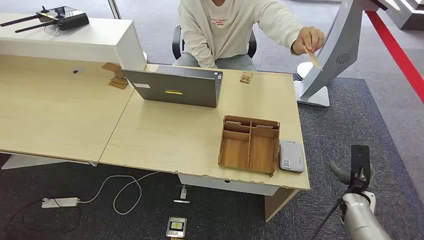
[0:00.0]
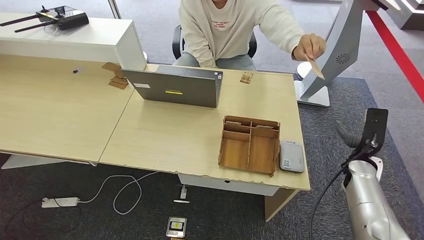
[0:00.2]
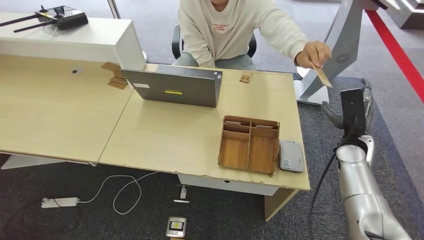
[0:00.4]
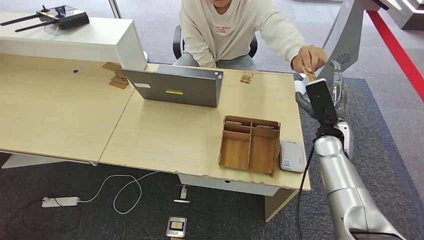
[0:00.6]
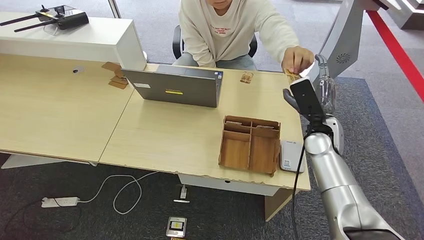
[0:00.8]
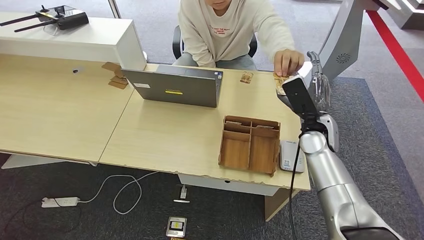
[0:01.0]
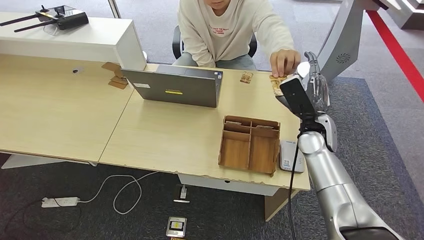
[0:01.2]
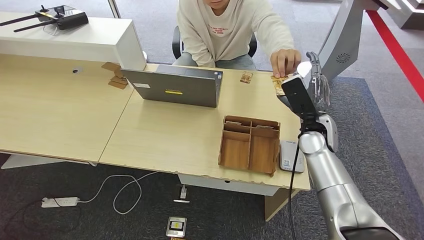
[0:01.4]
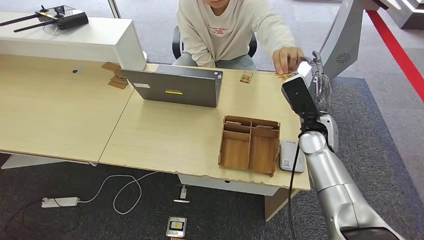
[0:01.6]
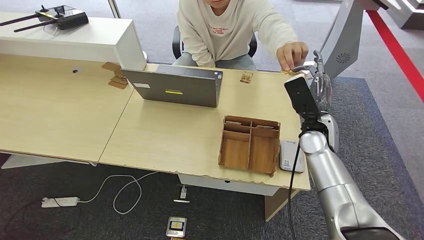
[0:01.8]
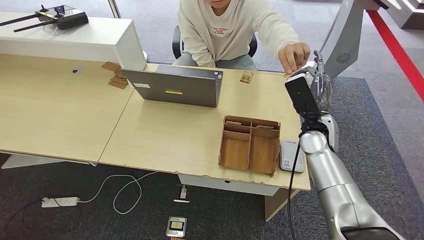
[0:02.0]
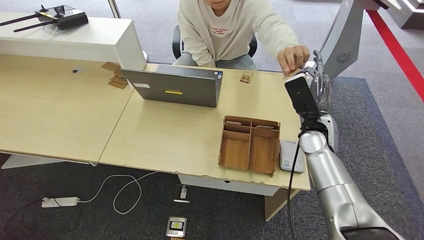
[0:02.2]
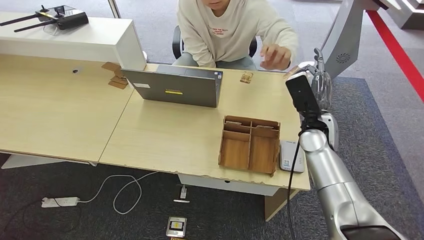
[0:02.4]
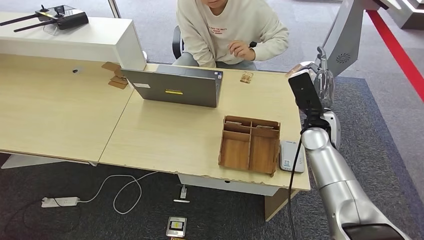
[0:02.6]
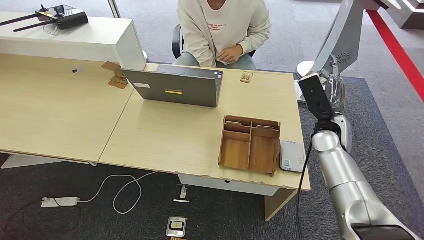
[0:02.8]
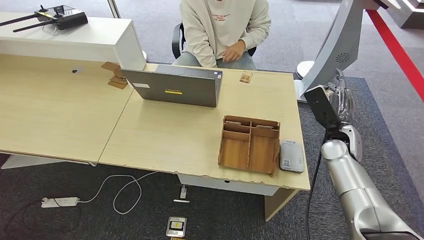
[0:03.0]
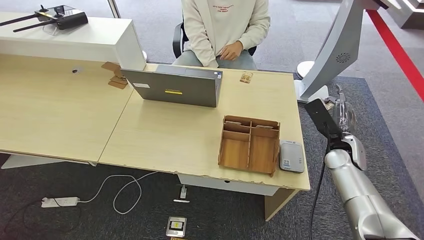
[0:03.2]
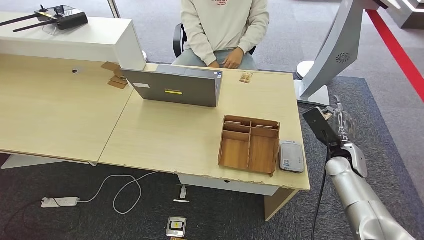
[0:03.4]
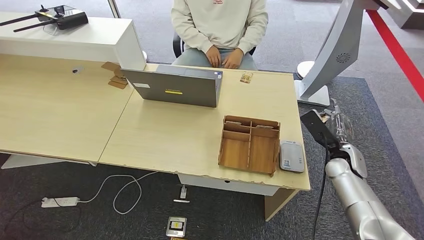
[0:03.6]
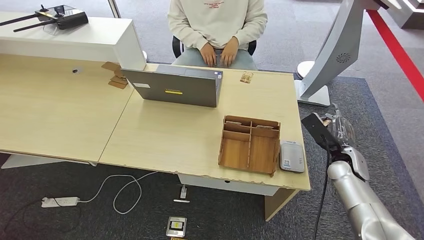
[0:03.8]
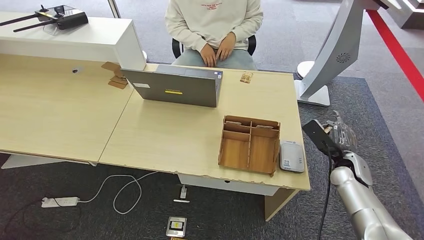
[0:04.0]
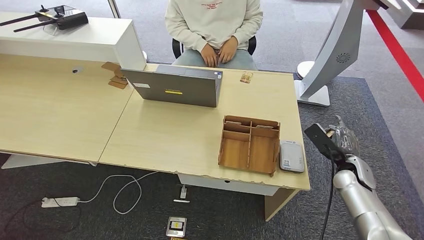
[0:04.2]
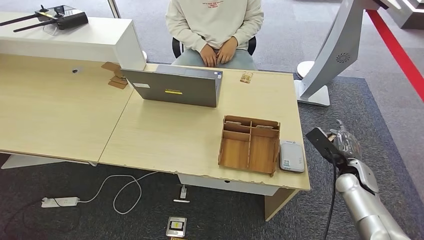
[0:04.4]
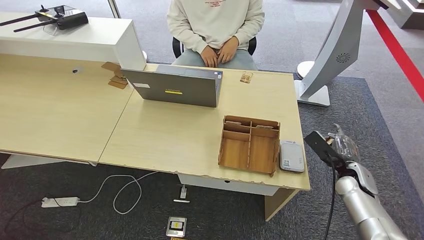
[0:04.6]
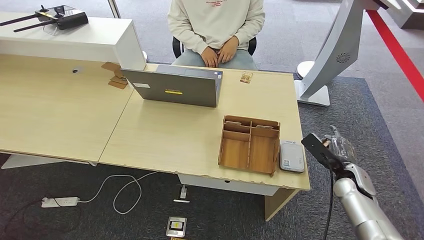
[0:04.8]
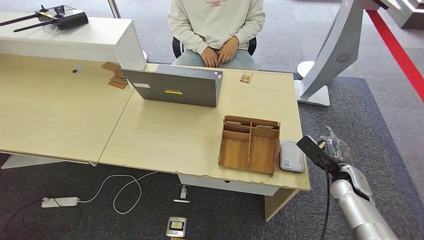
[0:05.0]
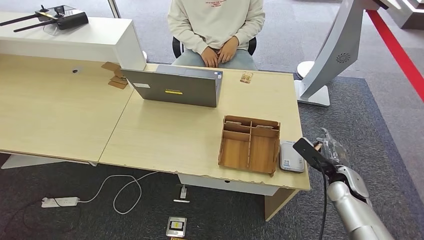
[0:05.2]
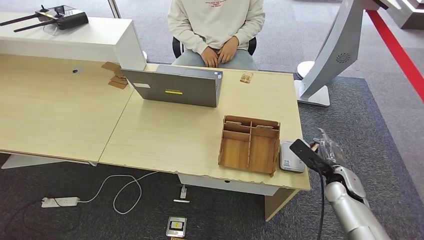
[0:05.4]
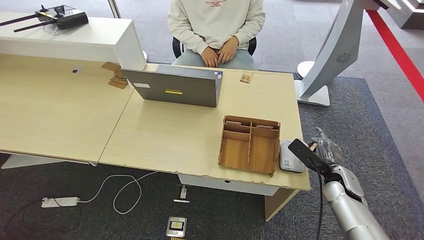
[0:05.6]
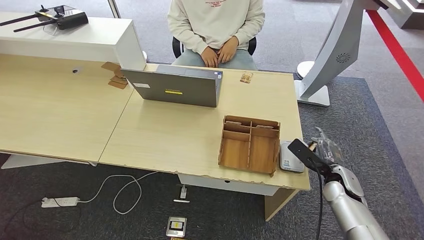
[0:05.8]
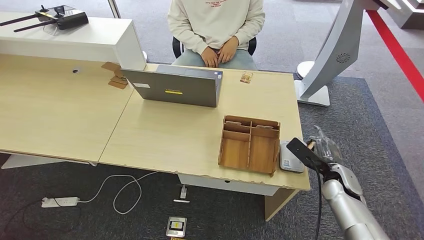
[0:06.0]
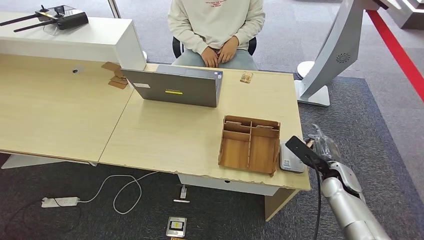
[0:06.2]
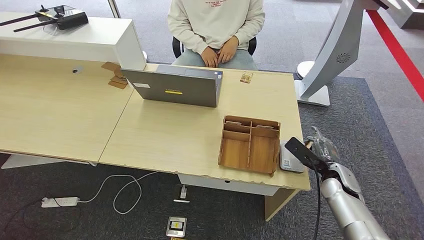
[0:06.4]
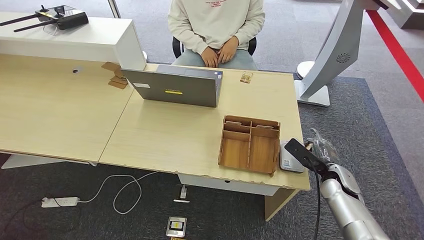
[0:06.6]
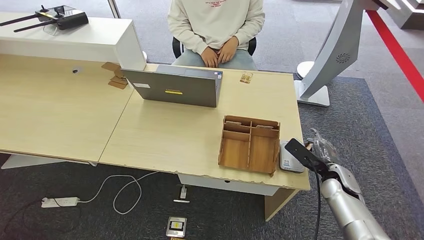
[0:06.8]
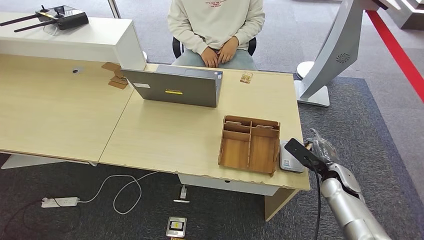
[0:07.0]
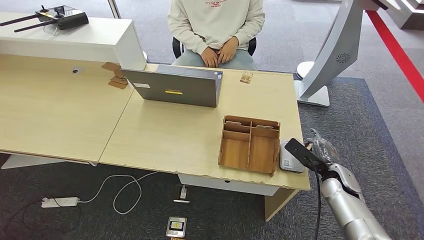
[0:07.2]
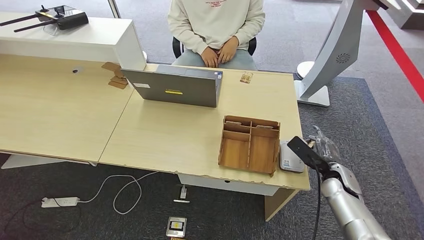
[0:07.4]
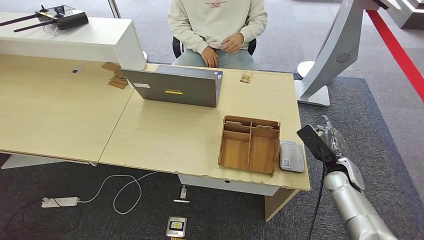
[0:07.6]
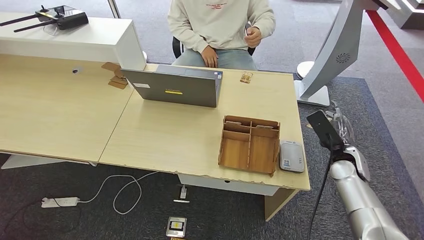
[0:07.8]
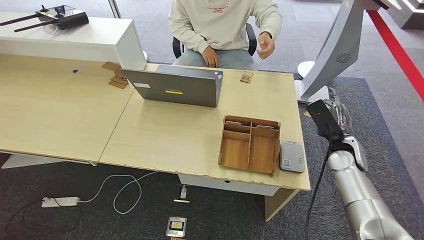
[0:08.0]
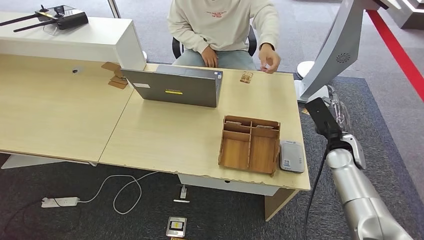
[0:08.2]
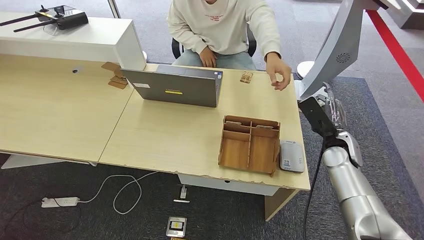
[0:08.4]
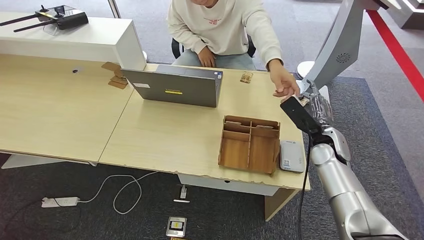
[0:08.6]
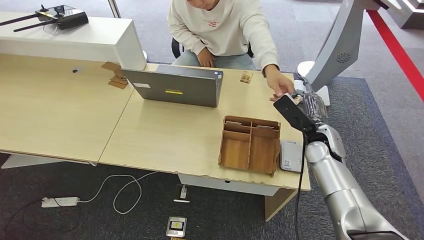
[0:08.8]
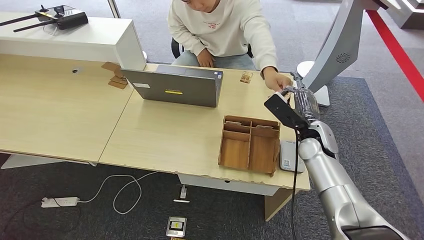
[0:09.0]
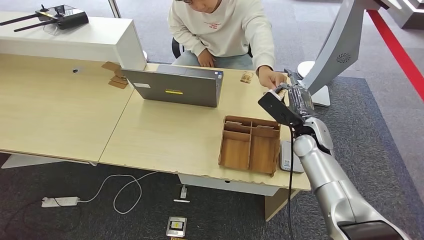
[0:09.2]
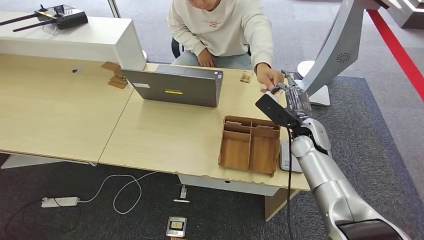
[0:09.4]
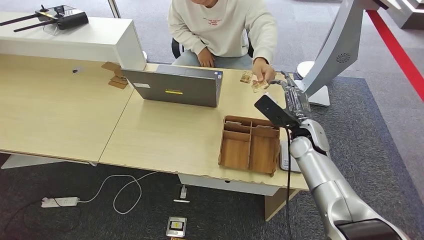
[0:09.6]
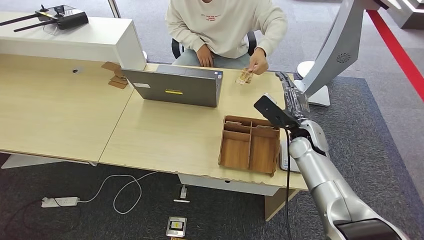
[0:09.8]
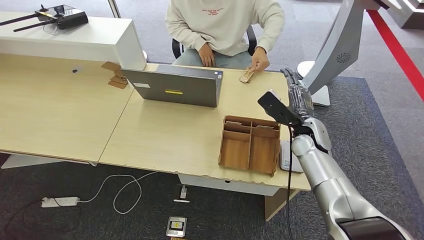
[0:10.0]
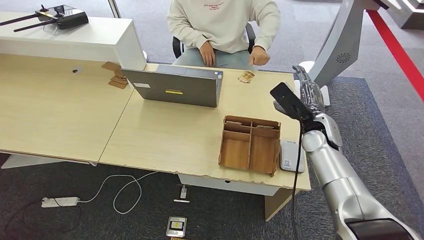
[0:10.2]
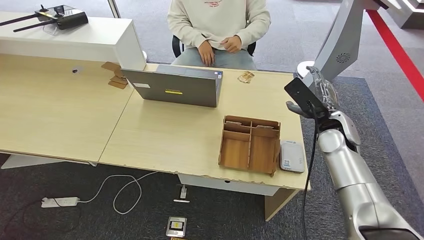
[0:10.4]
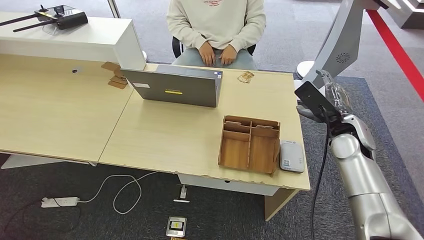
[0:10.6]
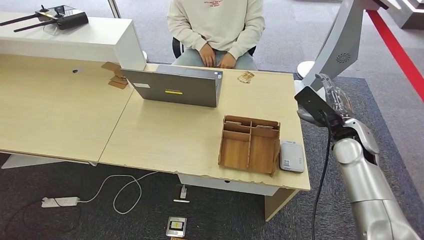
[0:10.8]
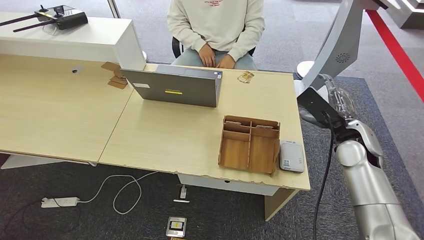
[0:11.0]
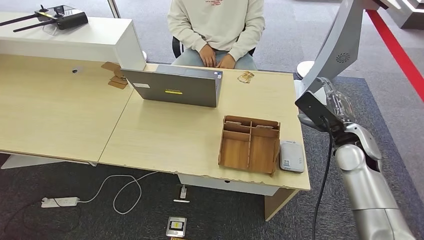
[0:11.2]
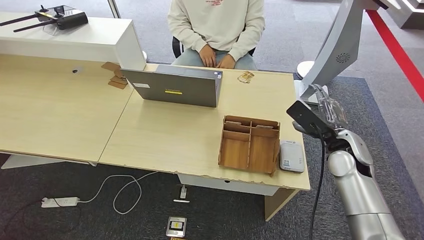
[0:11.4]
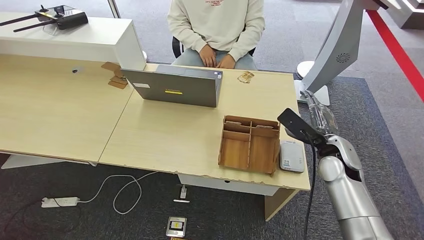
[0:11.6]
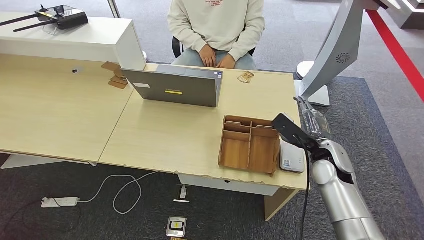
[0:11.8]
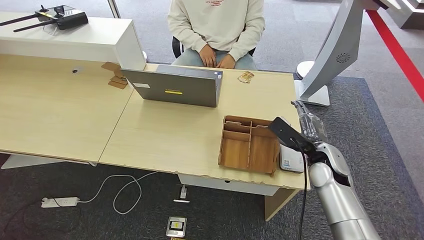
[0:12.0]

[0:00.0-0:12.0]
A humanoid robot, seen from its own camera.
Step, 0:00.0 to 0:03.0: Take the ID card from the person's hand.
Step, 0:03.4 to 0:07.4: Place the ID card on the card reader.
Step, 0:07.8 to 0:10.0: Hand the ID card to the person.
0:01.6 to 0:03.0: The right hand travels to the right by approximately 5 cm.
0:03.0 to 0:04.4: The right hand goes about 10 cm downward and to the right.
0:04.4 to 0:07.6: The hands stay close to where they were, moving slightly.
0:07.6 to 0:09.0: The right hand goes approximately 15 cm to the left and upward.
0:09.0 to 0:10.4: There are only small adjustments of the hands.
0:10.4 to 0:12.0: The right hand travels downward and backward by about 10 cm.

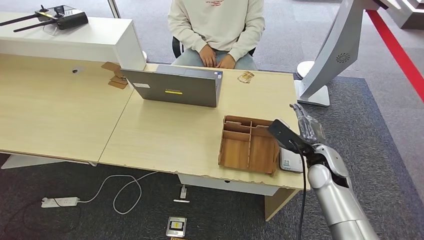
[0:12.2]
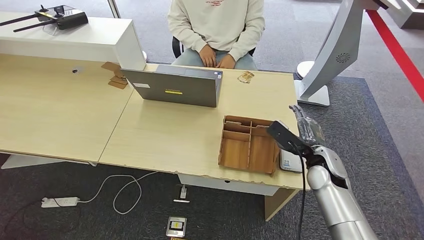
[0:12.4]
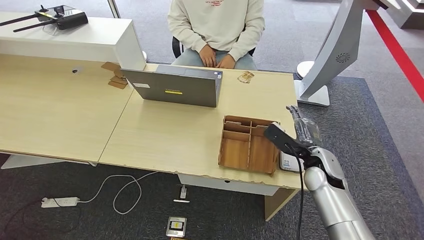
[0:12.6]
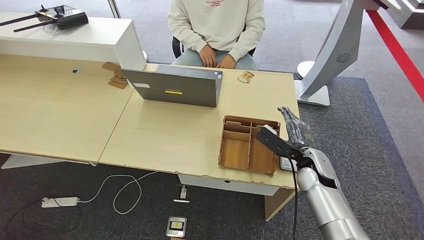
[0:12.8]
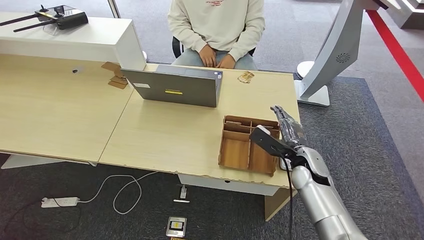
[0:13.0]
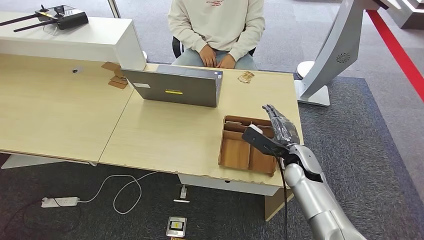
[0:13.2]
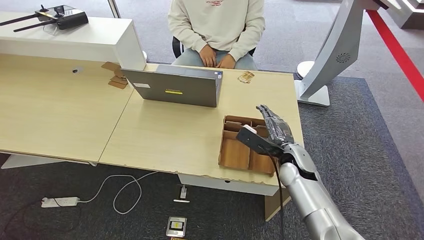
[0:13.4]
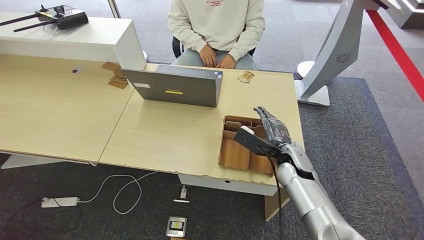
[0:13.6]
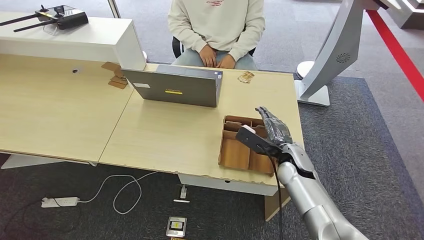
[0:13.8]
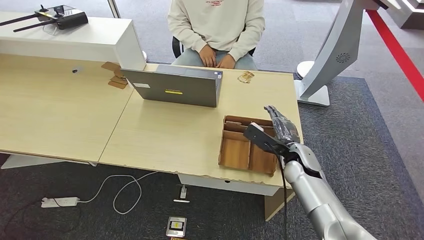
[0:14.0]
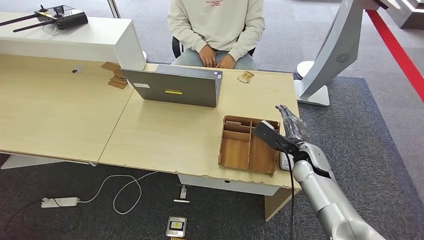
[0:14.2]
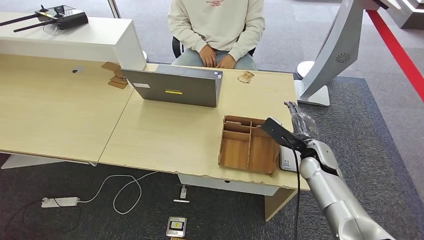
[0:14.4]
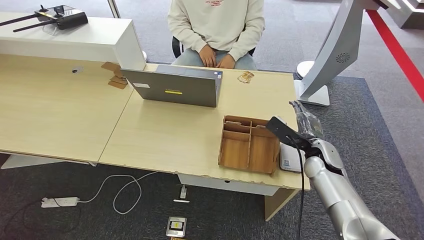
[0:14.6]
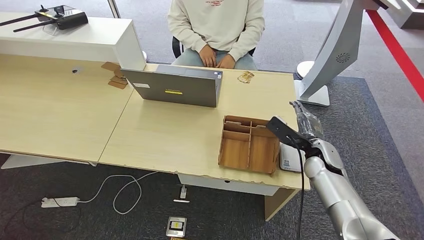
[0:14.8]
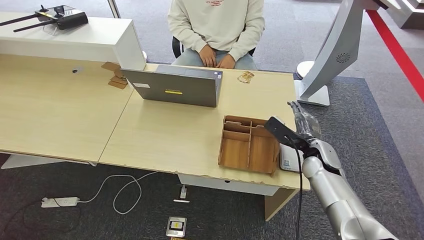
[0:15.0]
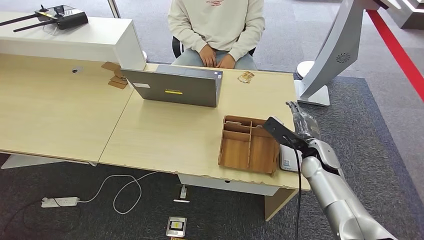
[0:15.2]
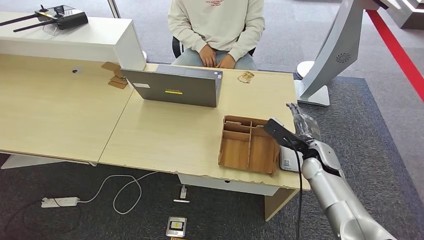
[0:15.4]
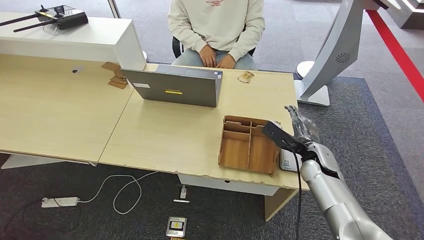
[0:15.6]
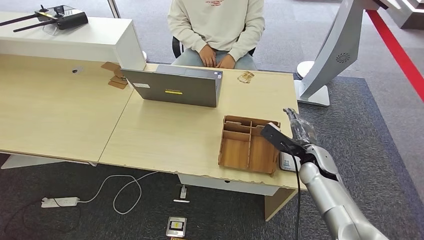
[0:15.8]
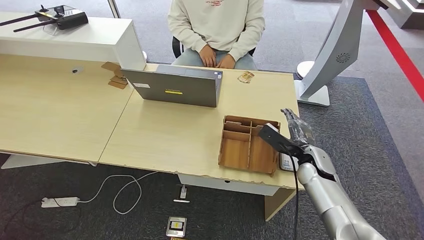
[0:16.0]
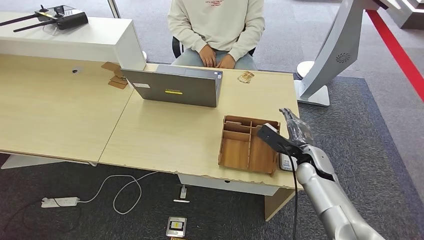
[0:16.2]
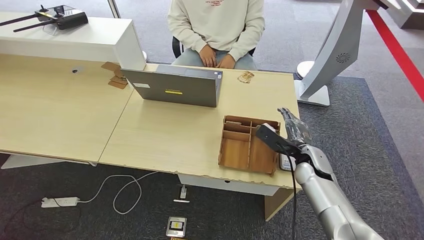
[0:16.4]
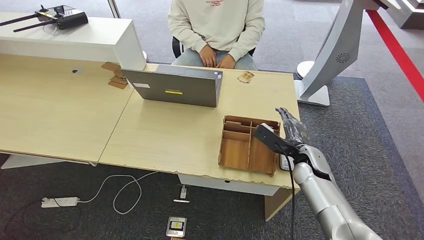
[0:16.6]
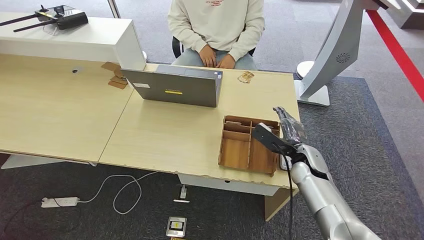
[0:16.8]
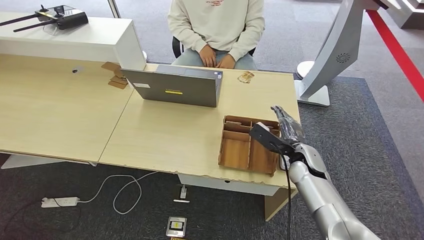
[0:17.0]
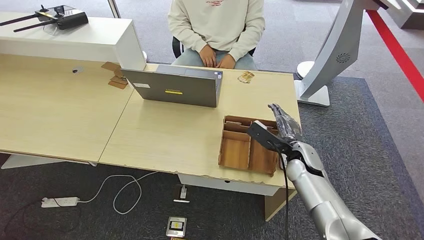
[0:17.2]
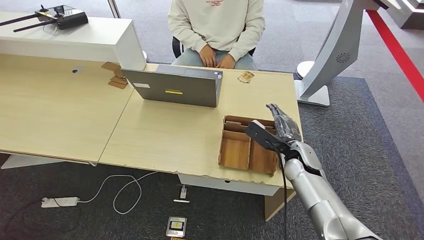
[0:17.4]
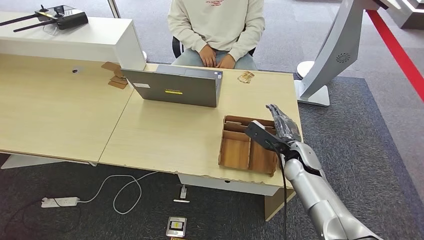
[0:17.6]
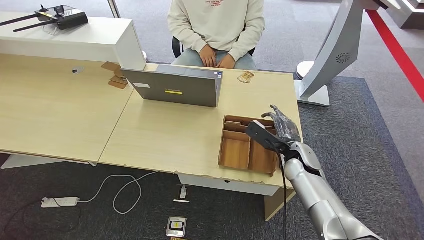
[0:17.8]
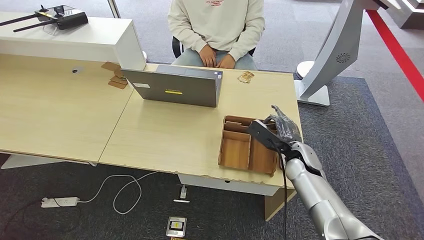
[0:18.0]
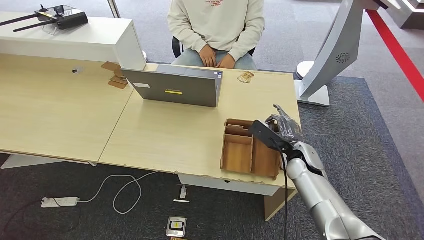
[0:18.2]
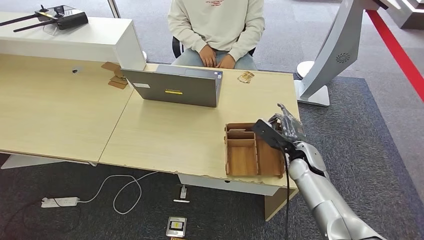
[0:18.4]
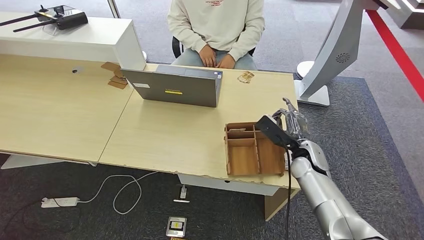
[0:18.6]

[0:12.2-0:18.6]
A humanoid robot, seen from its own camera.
0:12.2 to 0:13.8: The right hand shifts about 5 cm to the left.
0:13.8 to 0:15.4: The right hand goes roughly 5 cm to the right.
0:15.4 to 0:18.6: The hands stay close to where they were, moving slightly.
